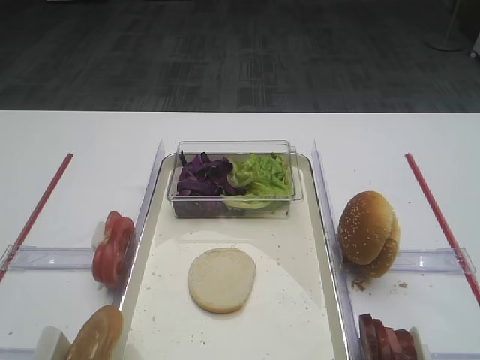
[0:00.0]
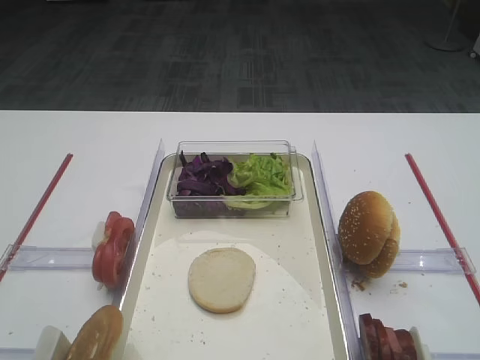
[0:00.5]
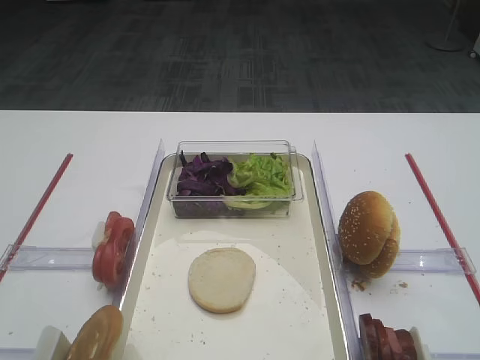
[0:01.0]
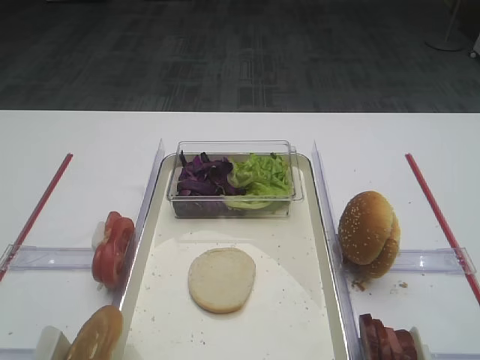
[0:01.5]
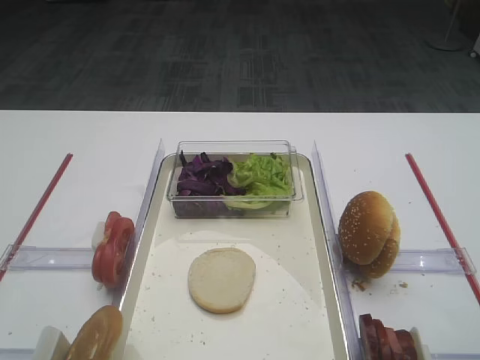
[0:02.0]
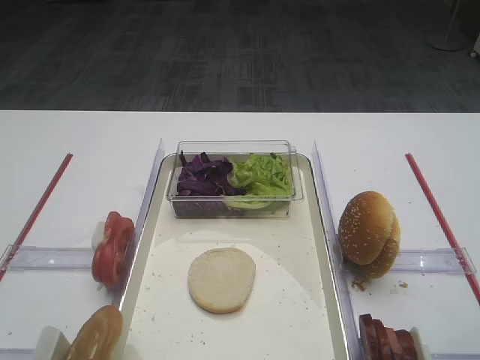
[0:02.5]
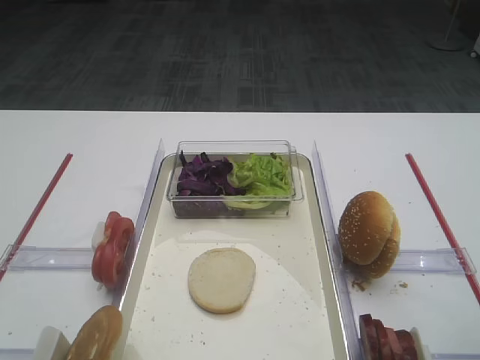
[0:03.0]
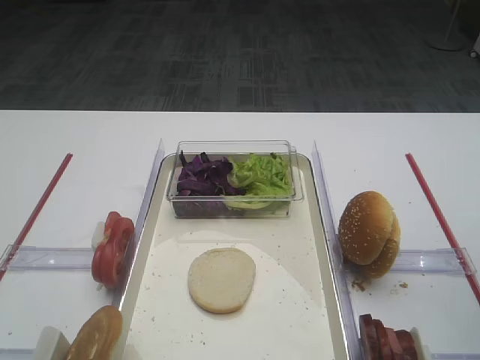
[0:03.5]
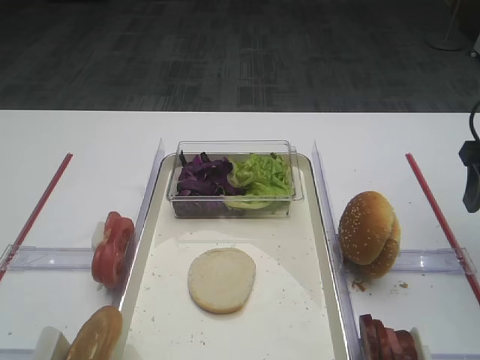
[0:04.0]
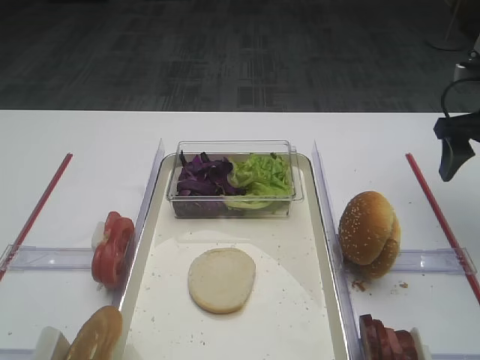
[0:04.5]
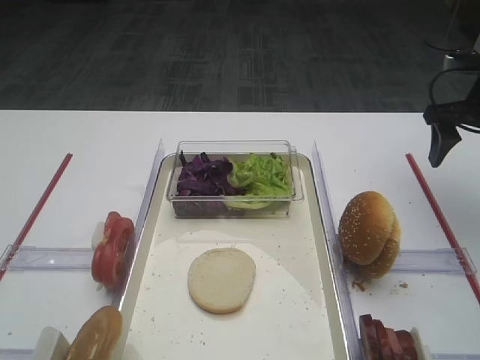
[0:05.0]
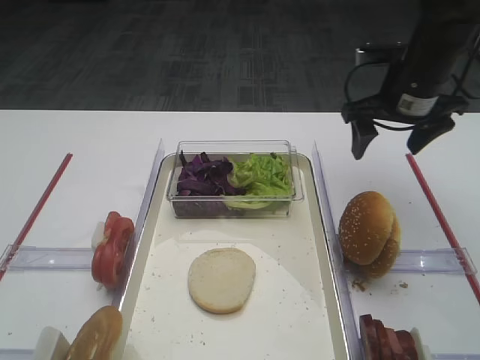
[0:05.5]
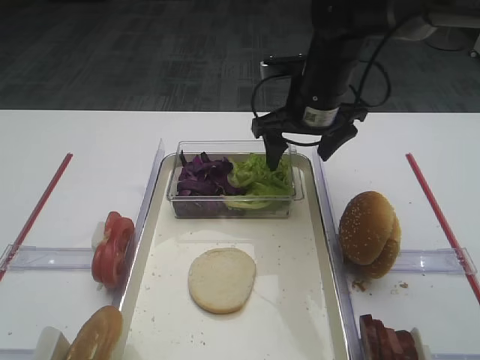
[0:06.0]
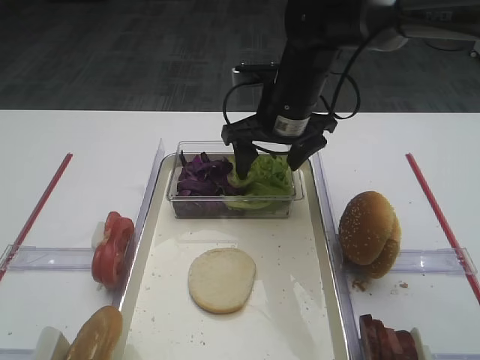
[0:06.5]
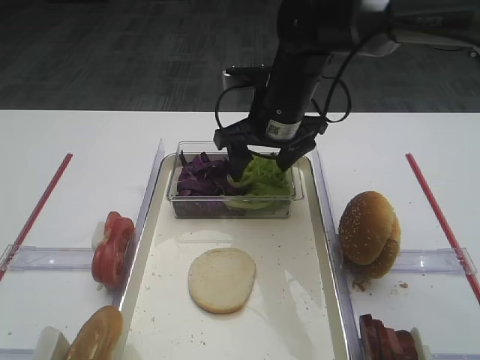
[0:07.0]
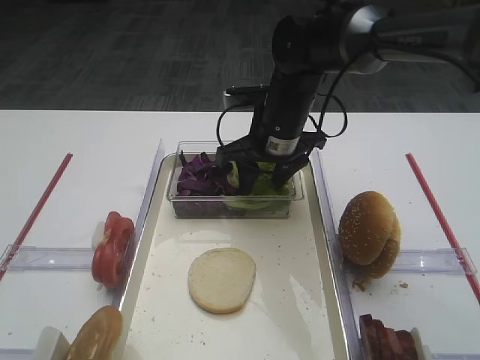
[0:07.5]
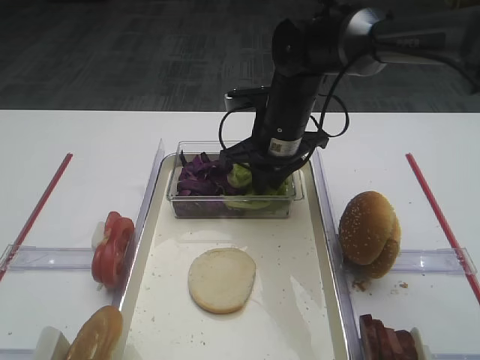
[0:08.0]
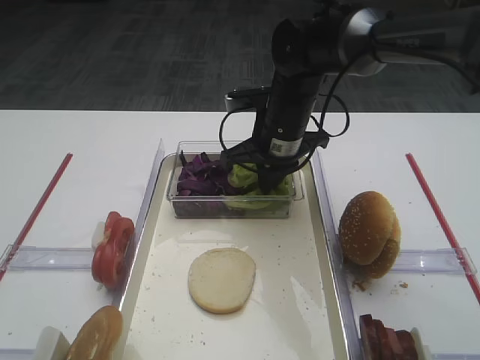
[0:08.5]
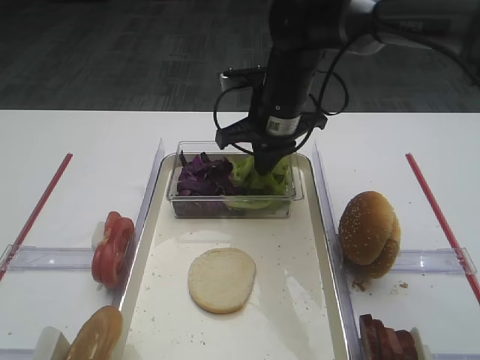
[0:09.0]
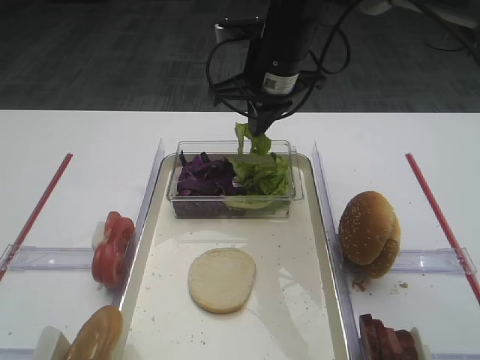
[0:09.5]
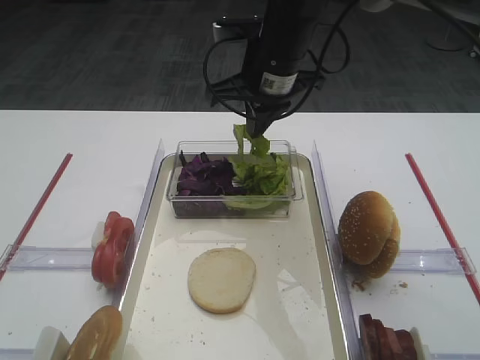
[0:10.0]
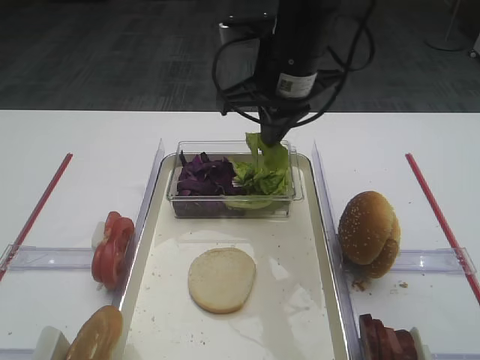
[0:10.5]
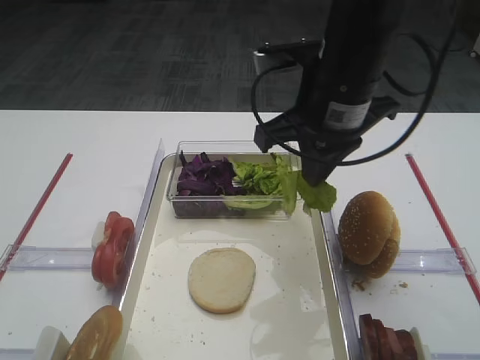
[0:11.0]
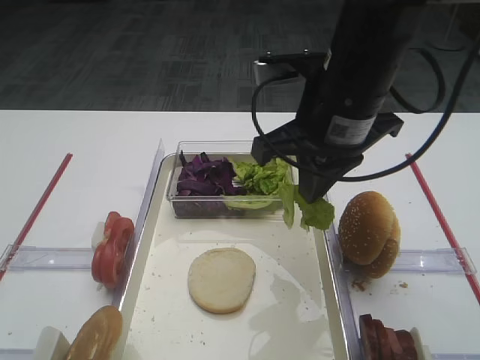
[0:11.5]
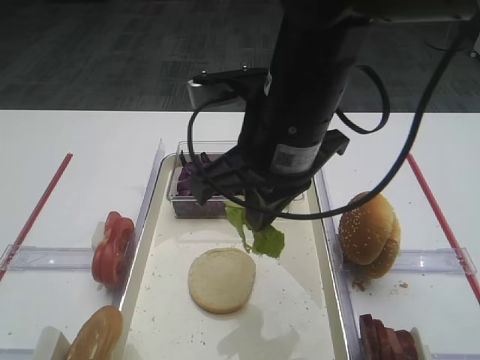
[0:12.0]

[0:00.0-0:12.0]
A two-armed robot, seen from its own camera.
Step, 0:00.0 to 0:10.0: Pick up the lettuce leaf with the right gripper.
0:02.0 to 0:04.0: The right gripper travels forward by approximately 20 cm.
0:04.0 to 0:06.0: The right gripper travels to the left and forward by about 25 cm.
0:06.0 to 0:08.0: The right gripper moves roughly 5 cm, and closes up.
0:08.0 to 0:10.0: The right gripper heads upward, covering approximately 10 cm.
0:10.0 to 0:12.0: The right gripper heads backward, covering roughly 15 cm.

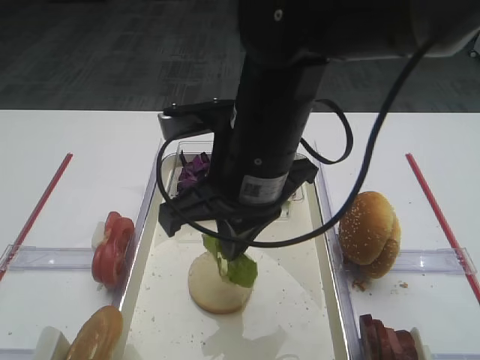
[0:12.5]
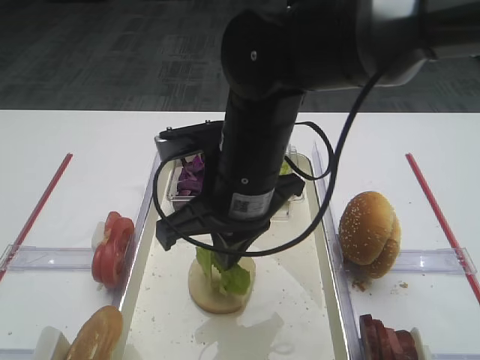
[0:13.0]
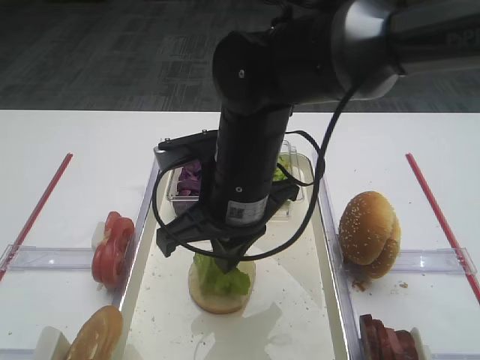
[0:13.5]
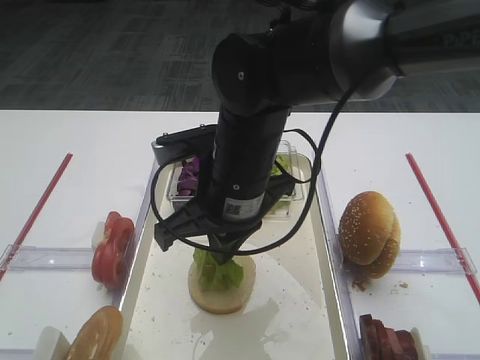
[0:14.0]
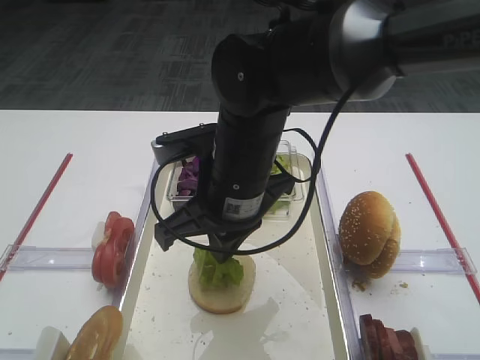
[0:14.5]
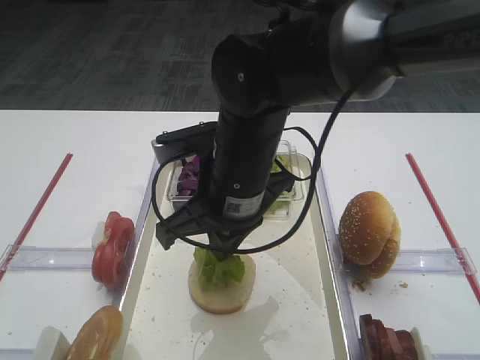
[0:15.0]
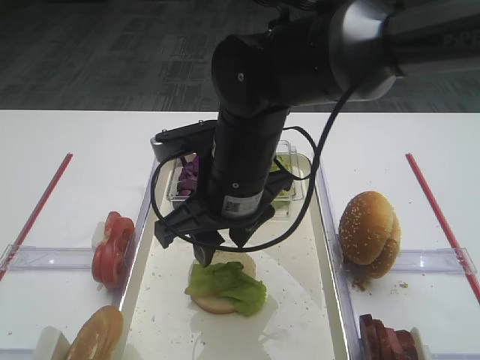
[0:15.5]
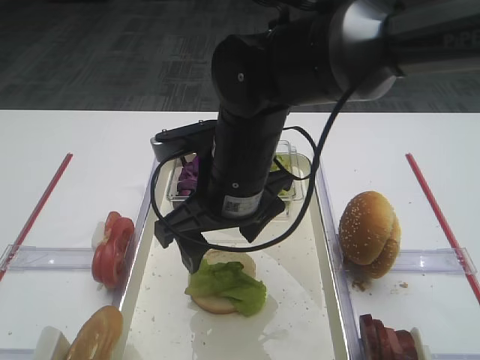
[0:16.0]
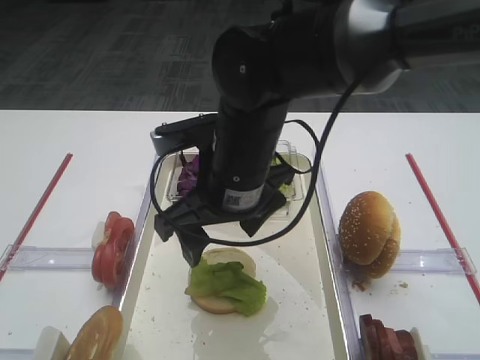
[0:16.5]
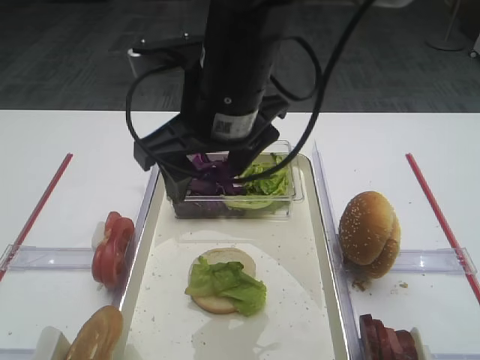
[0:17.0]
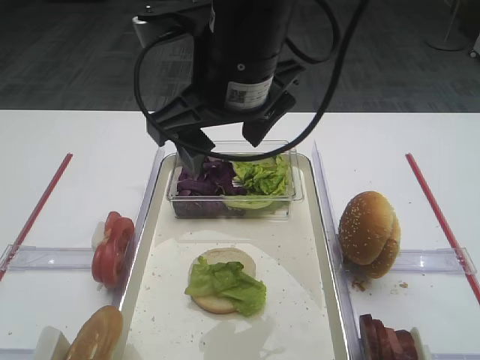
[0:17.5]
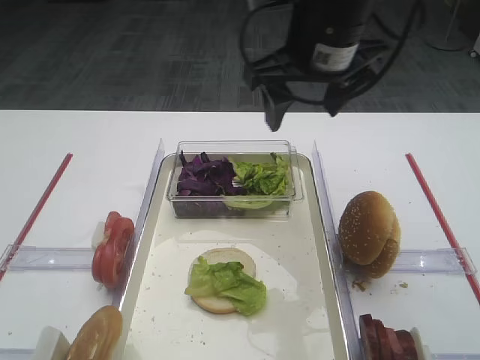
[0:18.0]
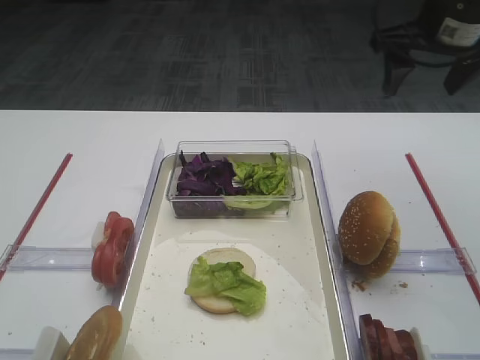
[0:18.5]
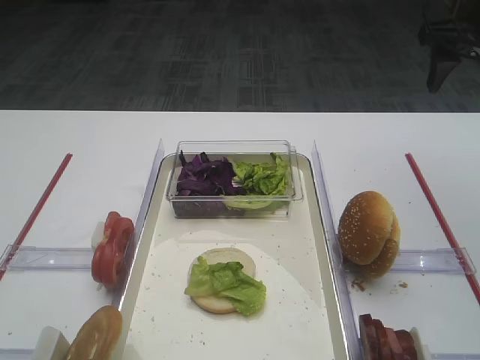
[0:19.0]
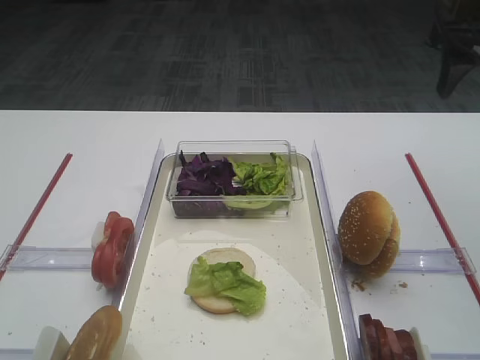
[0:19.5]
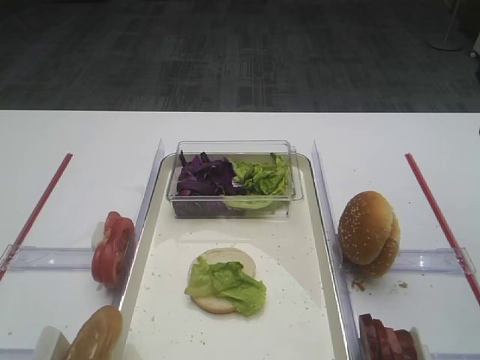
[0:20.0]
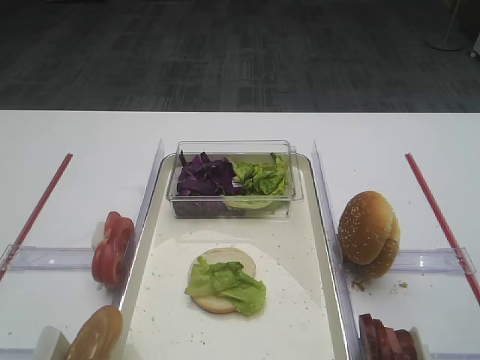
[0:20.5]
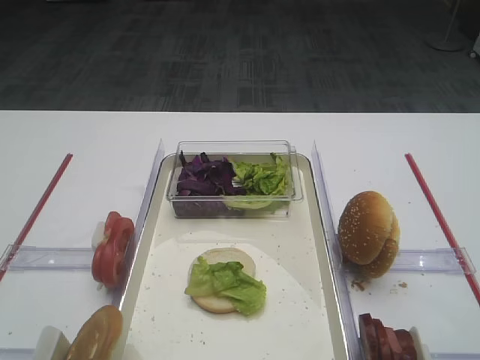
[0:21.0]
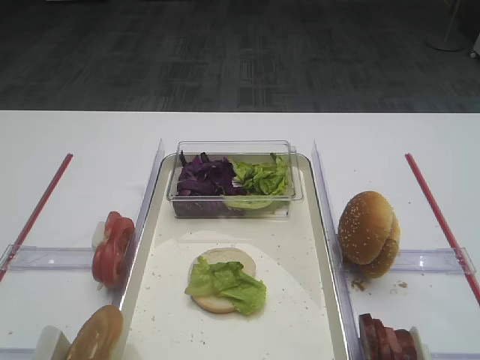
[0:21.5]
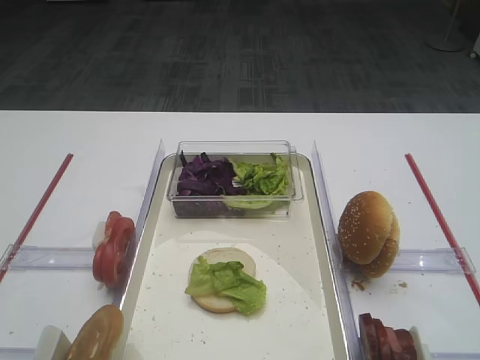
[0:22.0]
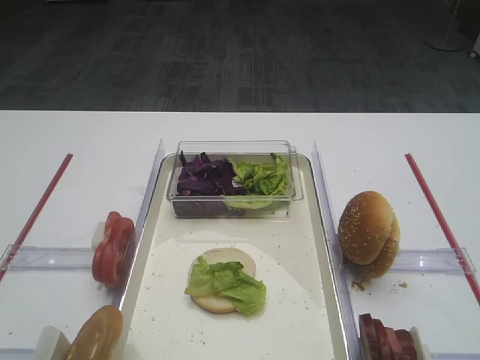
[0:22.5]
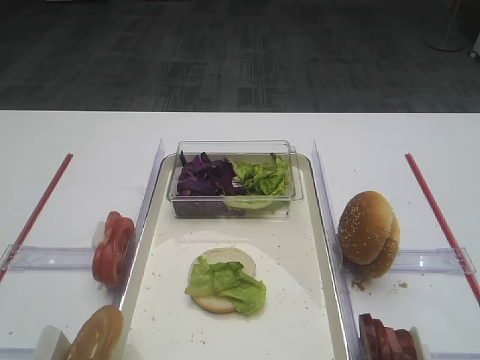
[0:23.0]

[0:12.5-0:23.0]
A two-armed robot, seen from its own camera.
Step, 0:12.5 to 0:16.5: Place the lettuce leaf on the bread slice with the right gripper.
0:12.5 to 0:14.5: The right gripper changes place by some 5 cm.
0:14.5 to 0:16.5: The right gripper opens.
0:16.5 to 0:19.0: The right gripper heads to the right and forward, covering roughly 30 cm.
0:19.0 to 0:21.0: The right gripper heads backward, covering roughly 30 cm.

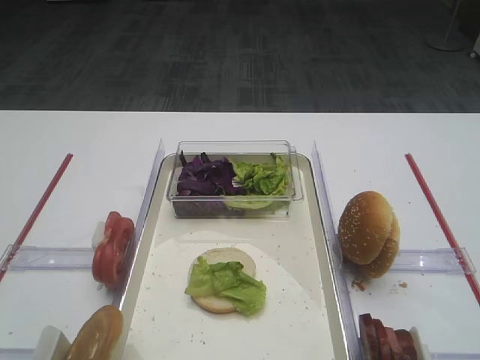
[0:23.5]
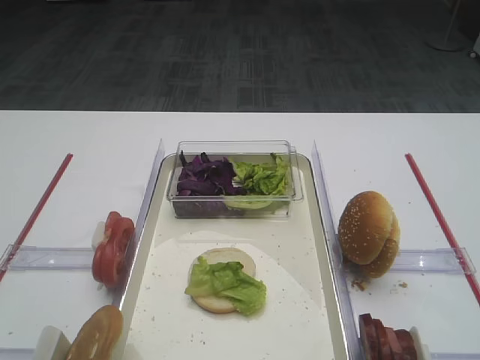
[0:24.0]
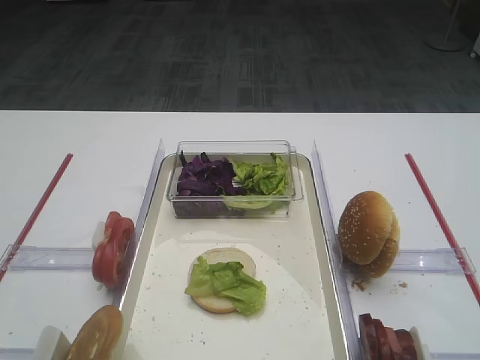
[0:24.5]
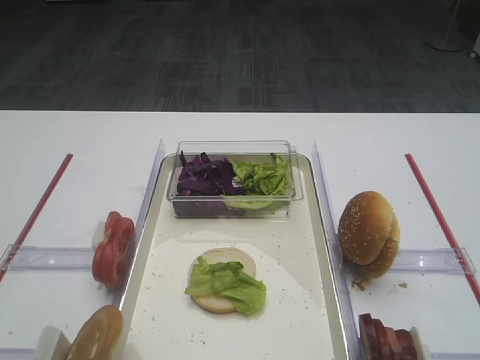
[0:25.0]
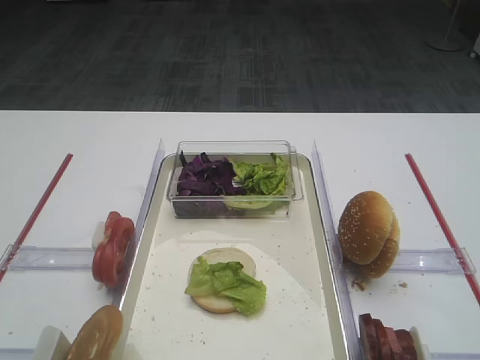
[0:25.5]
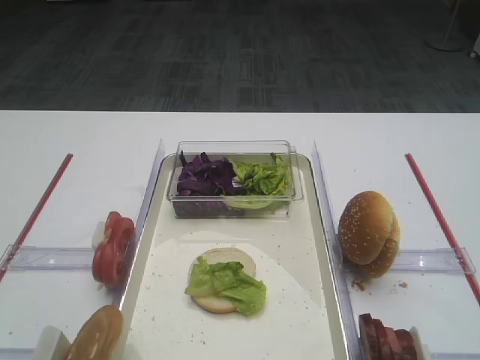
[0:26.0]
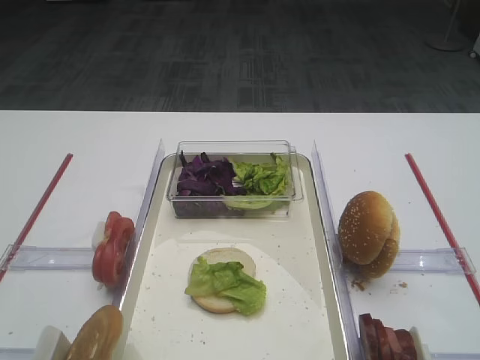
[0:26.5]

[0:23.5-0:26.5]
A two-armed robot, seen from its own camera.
0:23.5 to 0:26.5: Both grippers stay put.
